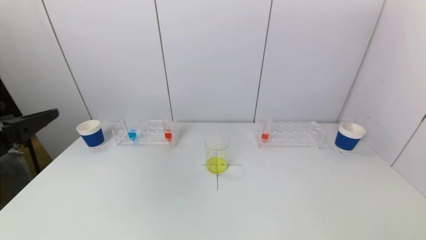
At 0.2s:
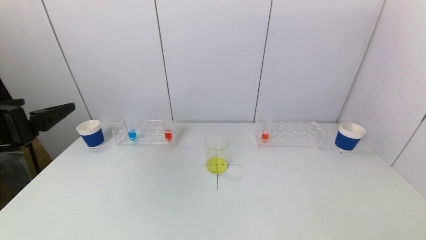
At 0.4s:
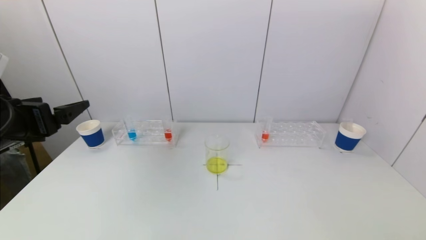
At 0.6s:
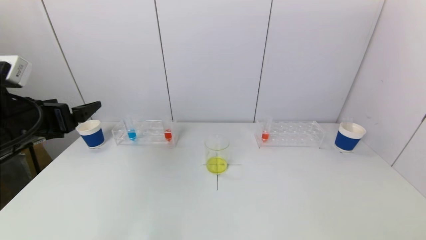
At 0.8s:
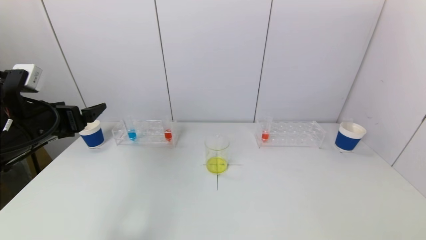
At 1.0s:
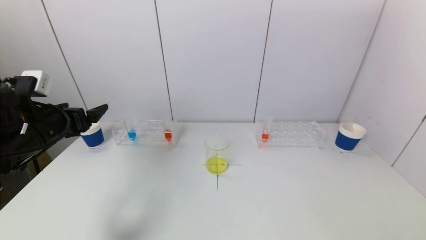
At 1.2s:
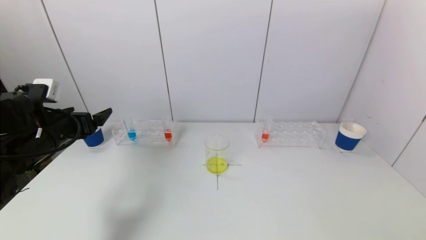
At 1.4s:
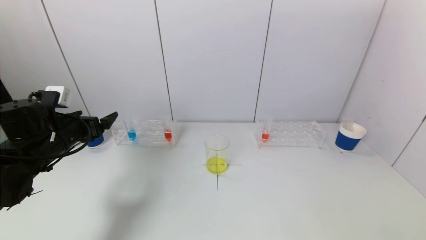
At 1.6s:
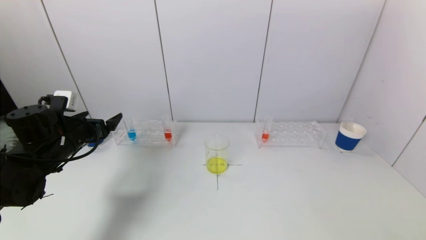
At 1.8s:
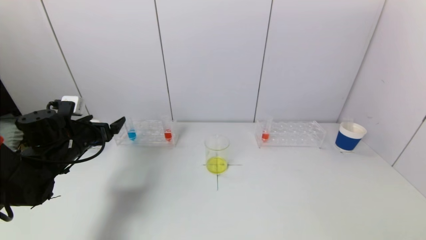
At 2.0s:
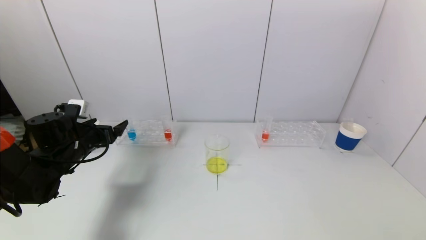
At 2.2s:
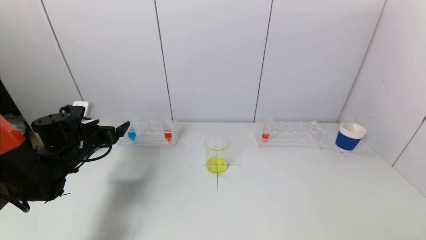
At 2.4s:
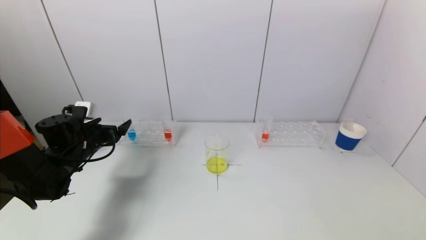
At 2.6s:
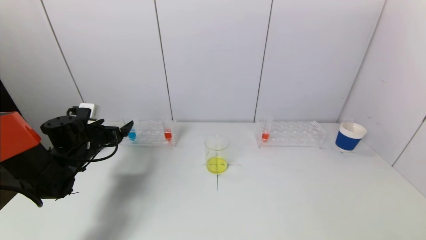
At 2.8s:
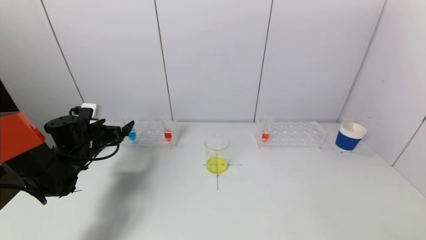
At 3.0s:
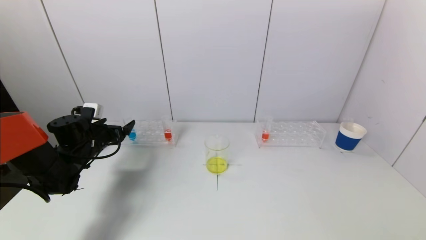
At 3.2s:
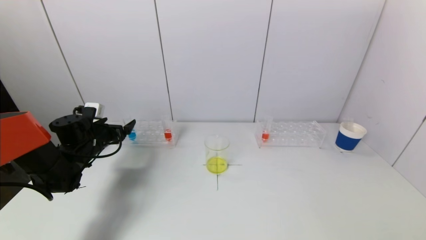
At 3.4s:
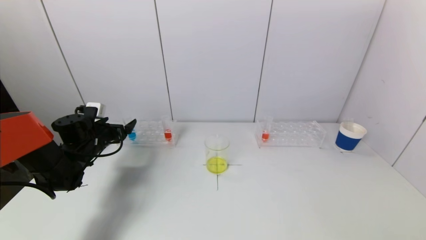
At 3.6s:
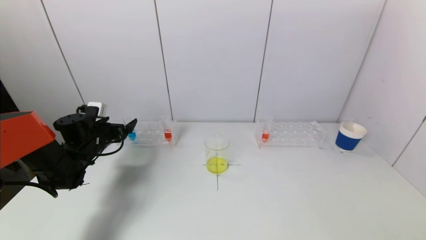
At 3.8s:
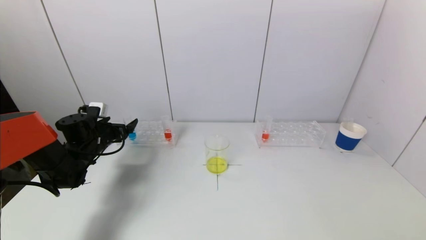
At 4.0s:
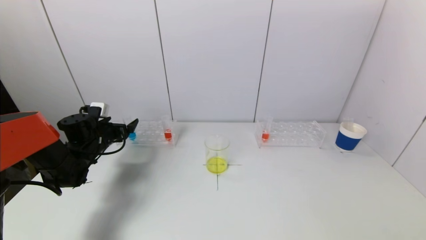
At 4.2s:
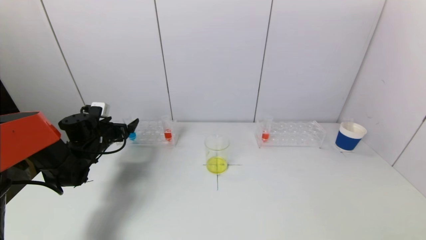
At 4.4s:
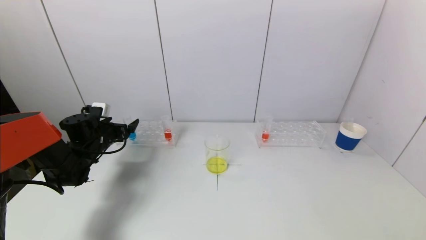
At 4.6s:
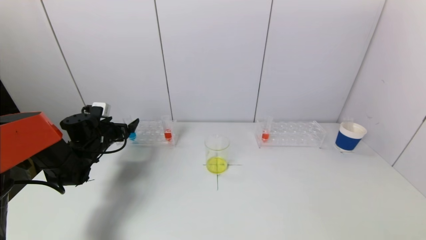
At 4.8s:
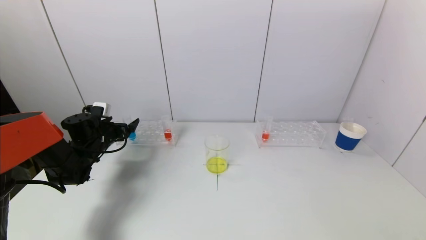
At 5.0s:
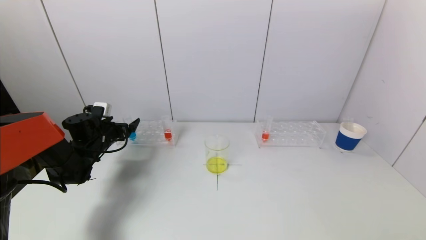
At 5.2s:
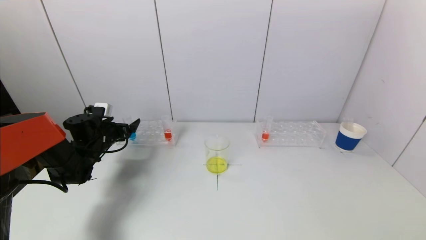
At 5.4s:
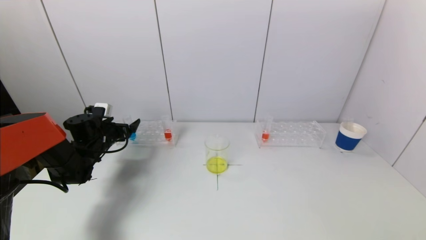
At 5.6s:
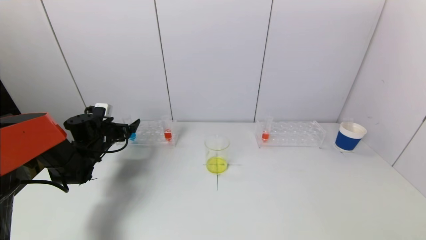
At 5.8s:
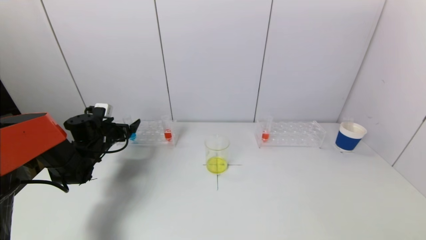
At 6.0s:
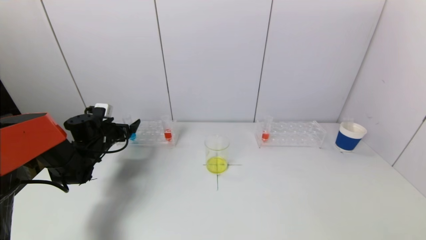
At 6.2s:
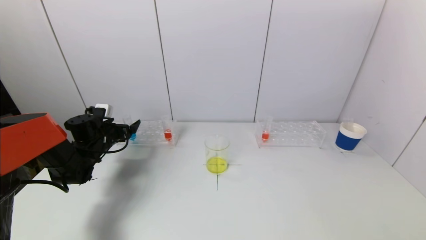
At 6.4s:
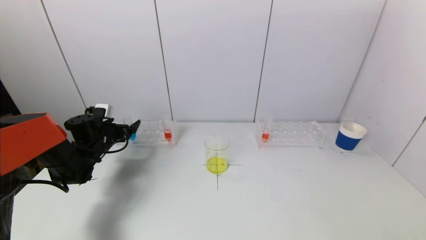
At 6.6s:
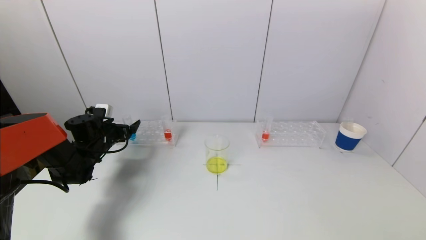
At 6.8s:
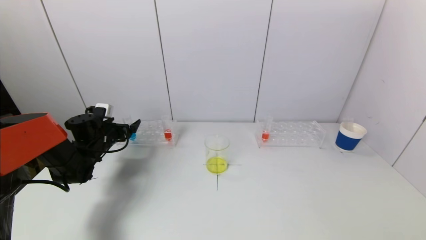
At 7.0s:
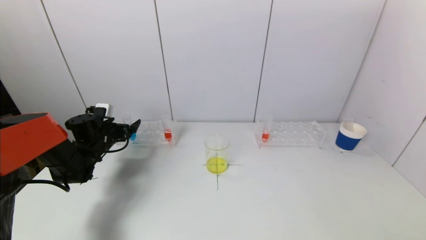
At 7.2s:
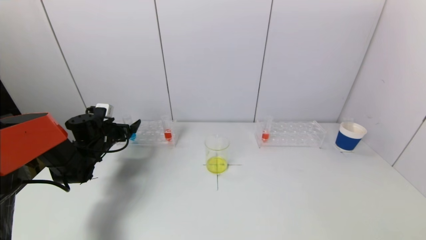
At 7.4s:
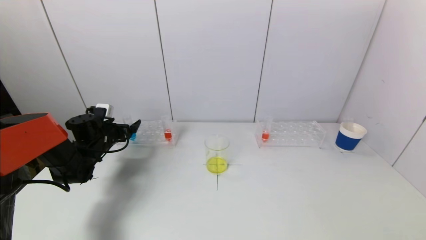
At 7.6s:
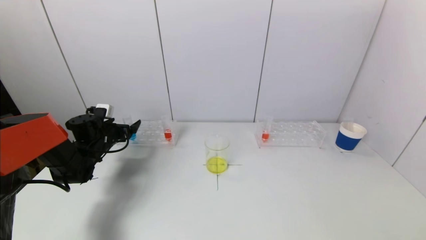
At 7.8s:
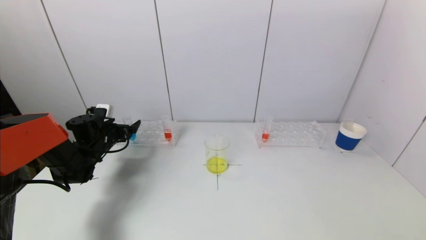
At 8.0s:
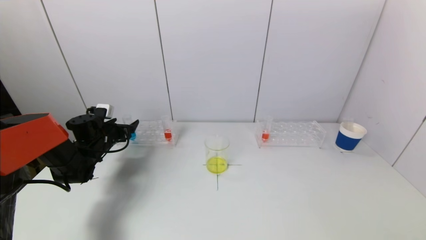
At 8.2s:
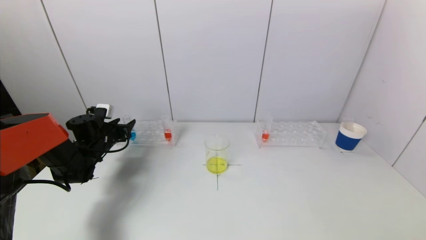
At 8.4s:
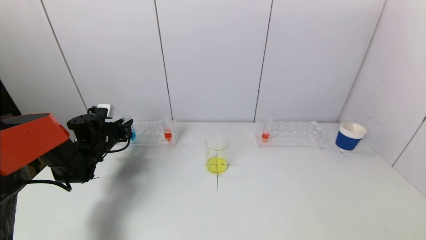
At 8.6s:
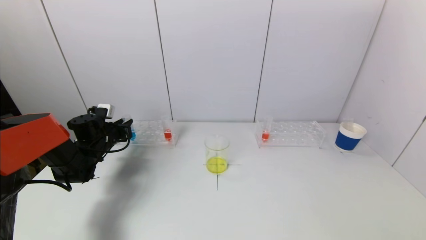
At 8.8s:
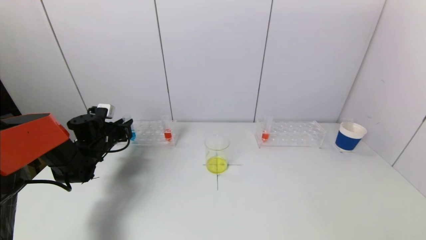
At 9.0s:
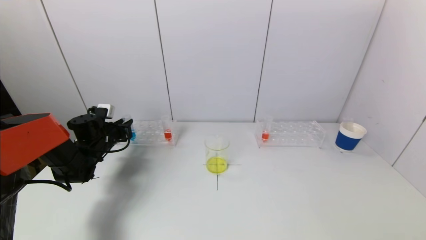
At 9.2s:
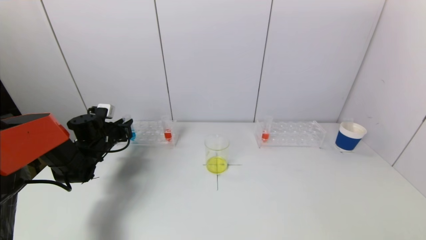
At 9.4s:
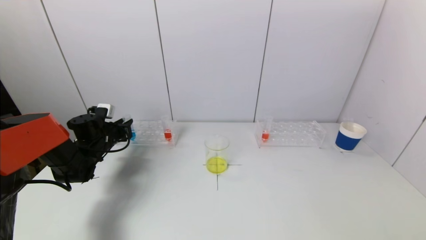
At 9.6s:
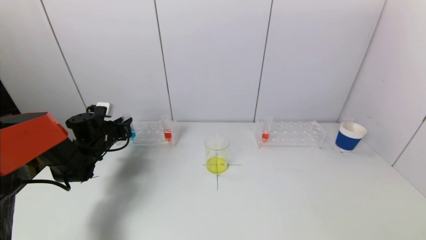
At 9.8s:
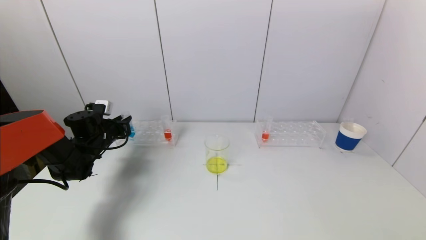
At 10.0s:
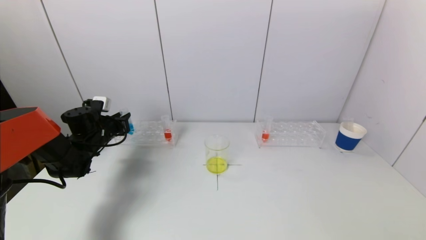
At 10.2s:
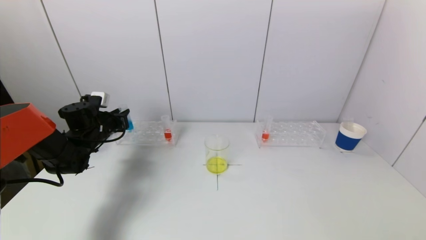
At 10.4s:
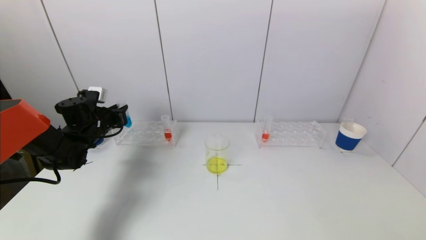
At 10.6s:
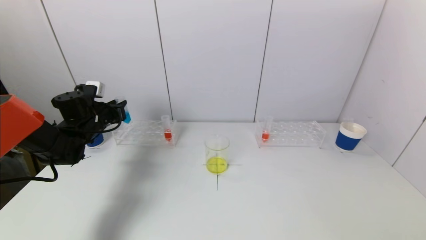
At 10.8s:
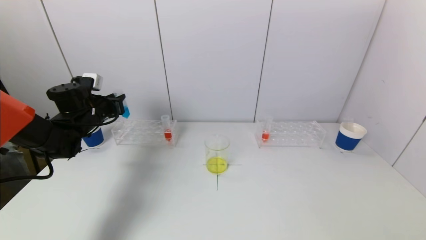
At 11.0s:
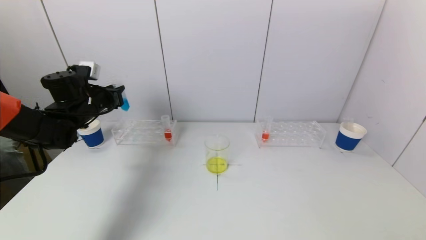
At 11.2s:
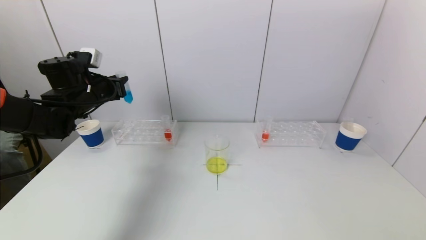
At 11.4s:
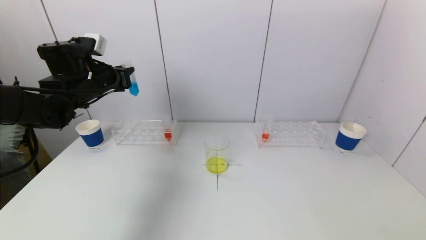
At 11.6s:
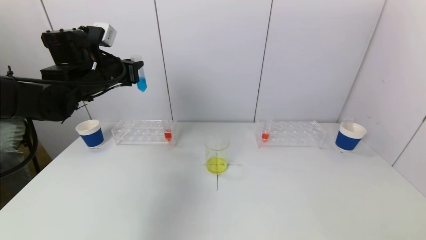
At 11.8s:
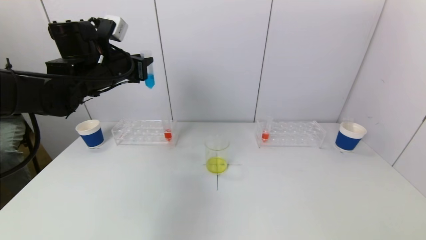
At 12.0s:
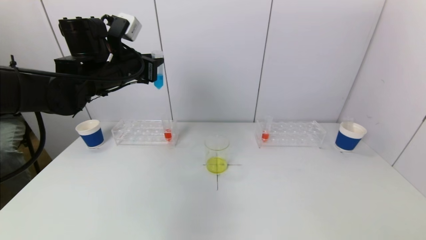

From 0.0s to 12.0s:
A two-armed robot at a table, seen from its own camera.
Task of the whole recording: pick up a test tube with pigment on left test tube rack and a test tube with pigment on right test tube rack by grippers and pour them into the beaker.
Step, from 0.0s to 8.8s: Grasp the blue reagent with the left gripper.
From 0.0s to 1.6s: The left gripper is displaced forward and downward by some 25 cm.
From 1.6s to 3.0s: The left gripper shifts about 10 cm forward and downward.
From 3.0s to 4.4s: There are only small adjustments of the grippers.
From 4.4s to 6.0s: Neither gripper changes place.
From 6.0s to 7.6s: Both grippers stay put.
From 7.6s to 9.0s: The left gripper closes its fingers.
From 9.0s to 10.4s: The left gripper is displaced upward by roughly 5 cm.
From 10.4s to 12.0s: The left gripper shifts approximately 20 cm upward and to the right.

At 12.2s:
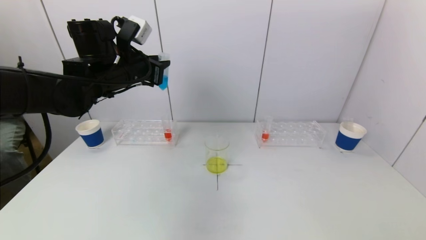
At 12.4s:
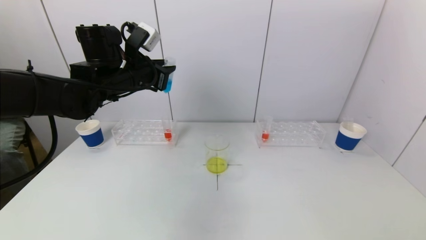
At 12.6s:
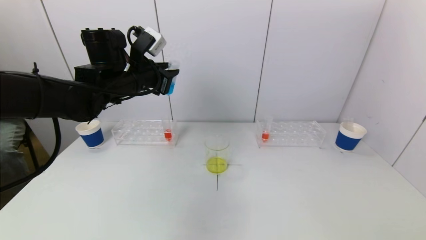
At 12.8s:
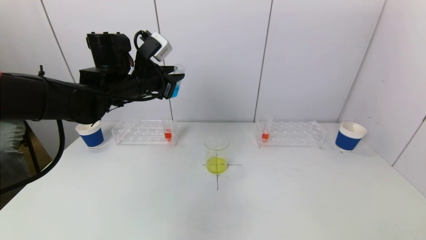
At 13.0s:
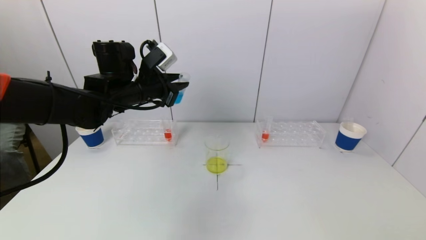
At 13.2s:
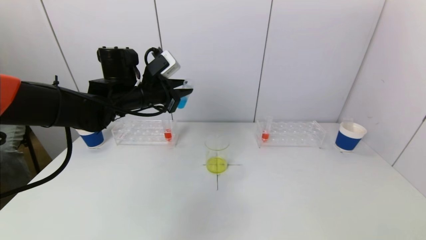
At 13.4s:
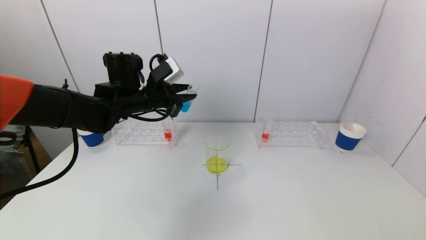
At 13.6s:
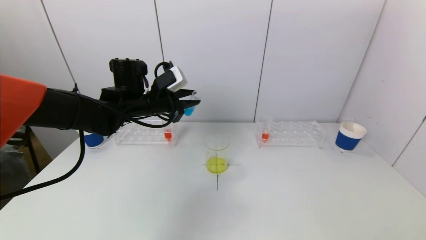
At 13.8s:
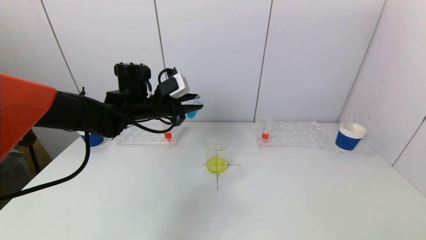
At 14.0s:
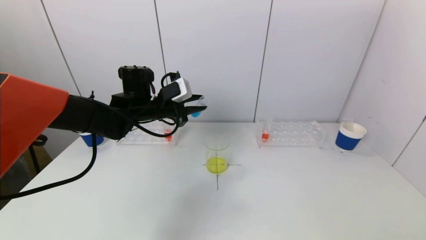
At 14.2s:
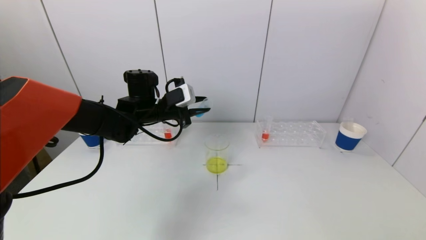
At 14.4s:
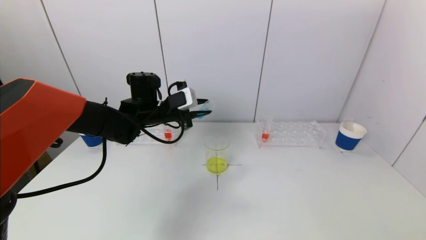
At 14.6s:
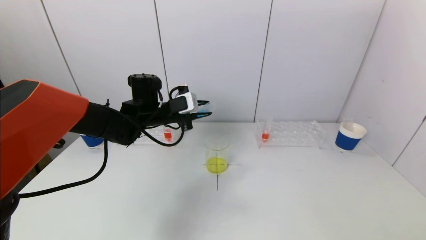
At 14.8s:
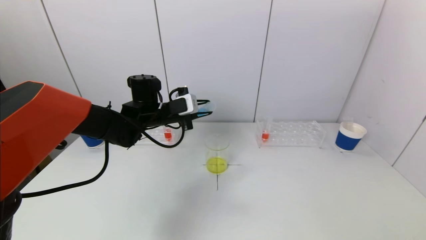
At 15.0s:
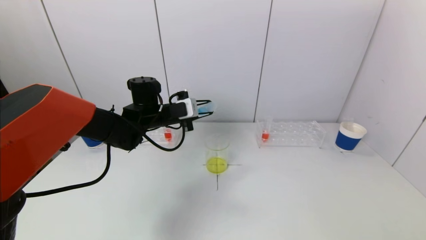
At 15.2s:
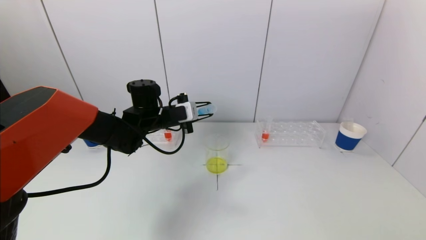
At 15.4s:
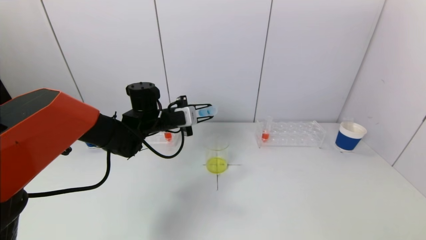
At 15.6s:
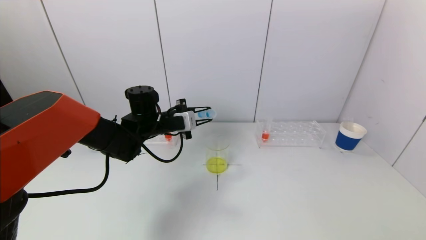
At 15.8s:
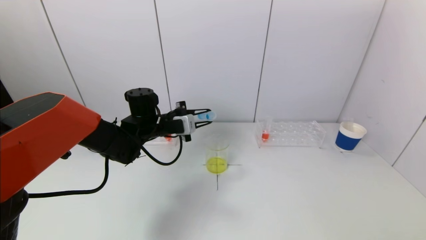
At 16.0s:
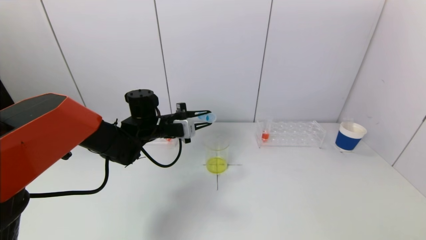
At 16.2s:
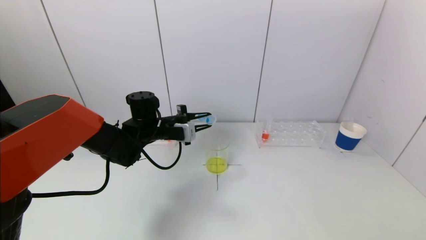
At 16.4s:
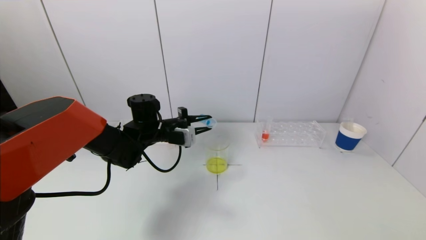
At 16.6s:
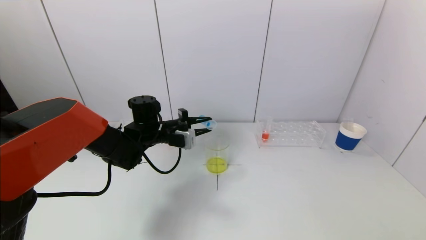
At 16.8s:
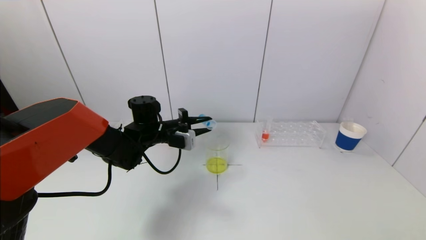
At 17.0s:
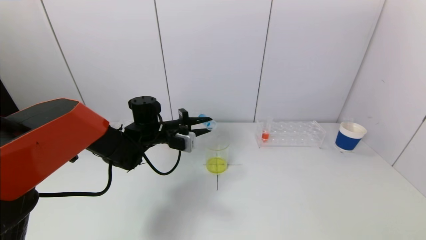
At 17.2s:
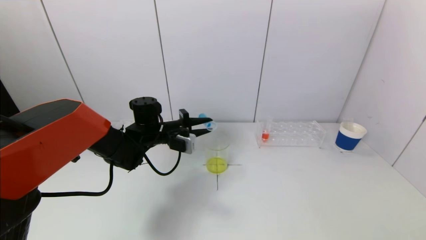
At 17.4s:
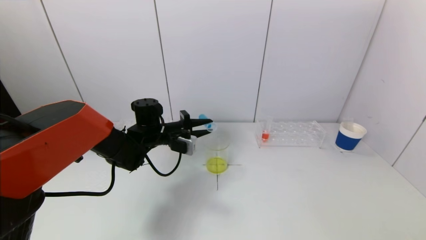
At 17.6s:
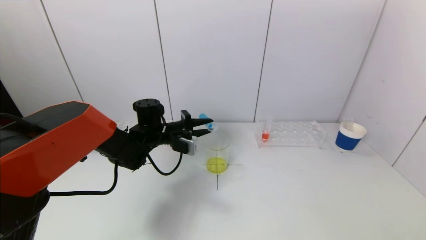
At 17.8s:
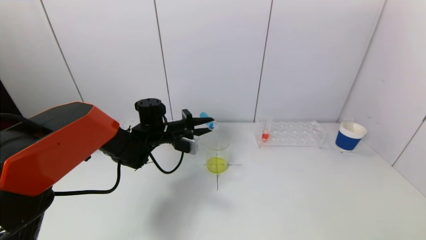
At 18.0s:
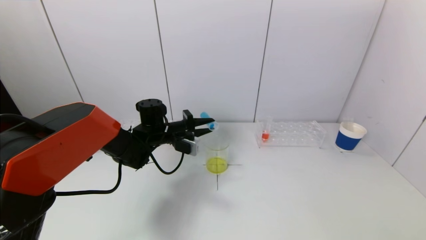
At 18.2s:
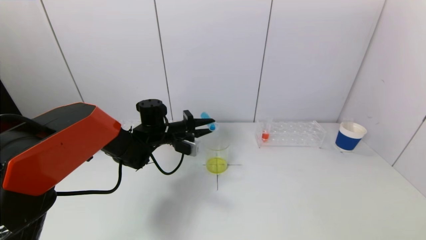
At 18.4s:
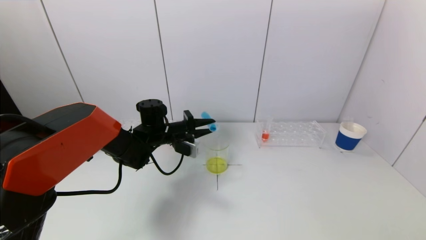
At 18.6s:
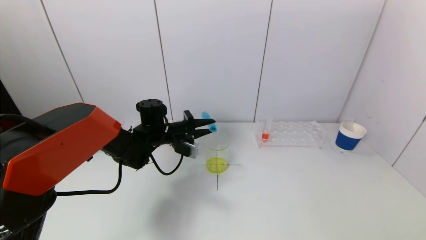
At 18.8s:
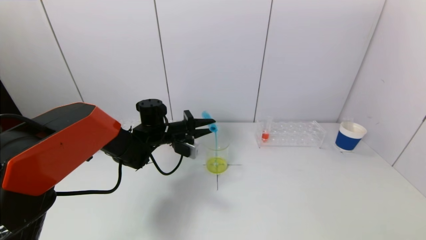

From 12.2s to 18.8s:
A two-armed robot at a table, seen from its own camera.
Task of the whole recording: pick up a test tube with pigment on left test tube rack and a test tube with pigment on right test tube rack by grippers and pour them into the beaker.
From 12.2s to 13.8s: The left gripper shifts roughly 10 cm downward.
From 13.8s to 15.4s: The left gripper moves about 5 cm.
From 15.4s to 17.2s: The grippers stay close to where they were, moving slightly.
From 17.2s to 18.8s: There are only small adjustments of the grippers.
